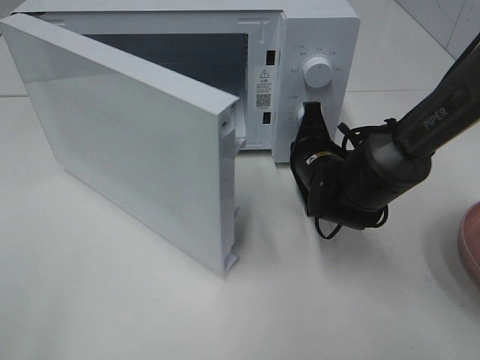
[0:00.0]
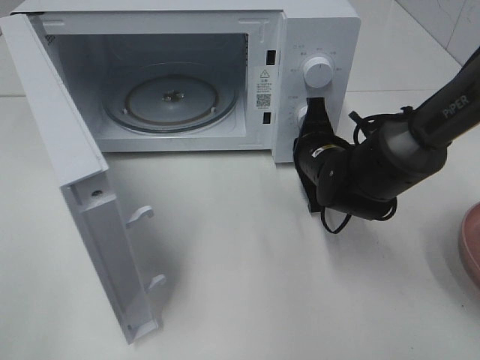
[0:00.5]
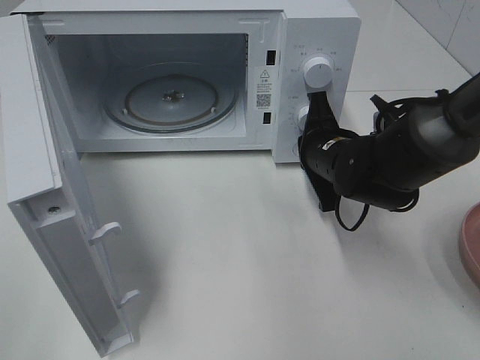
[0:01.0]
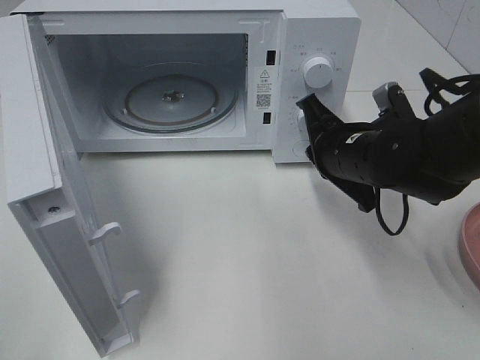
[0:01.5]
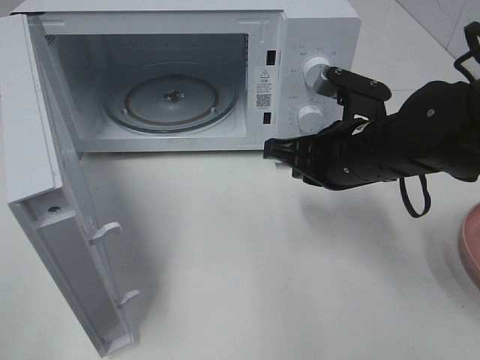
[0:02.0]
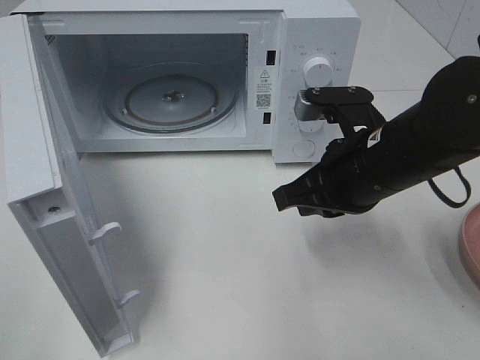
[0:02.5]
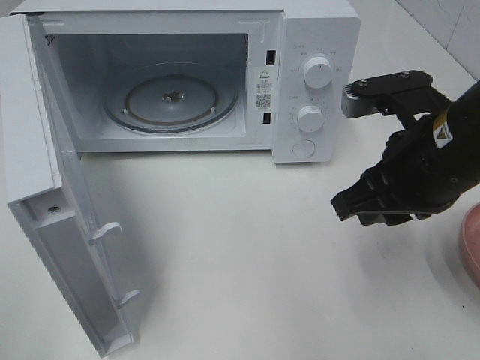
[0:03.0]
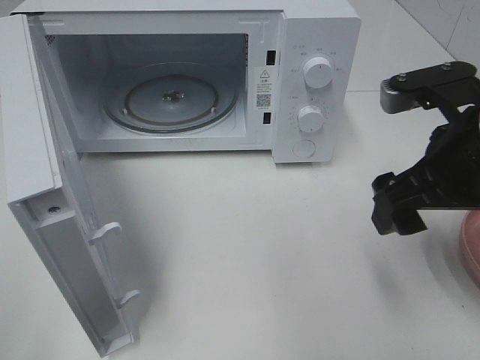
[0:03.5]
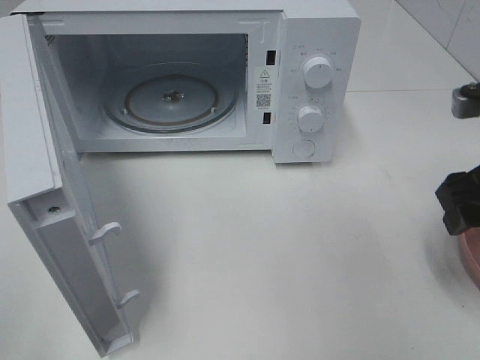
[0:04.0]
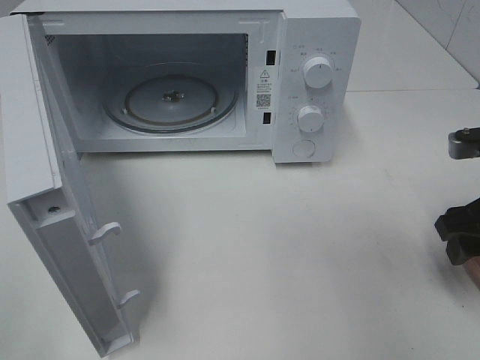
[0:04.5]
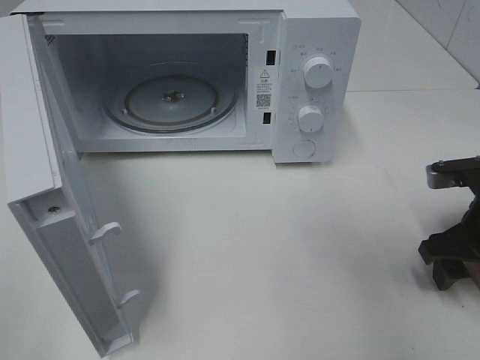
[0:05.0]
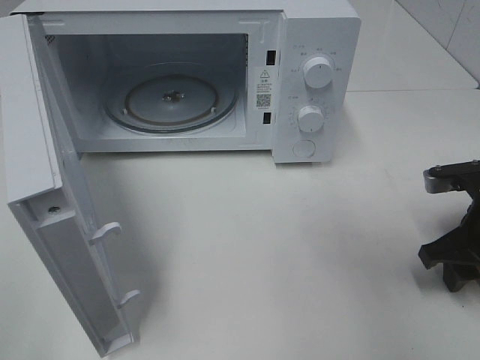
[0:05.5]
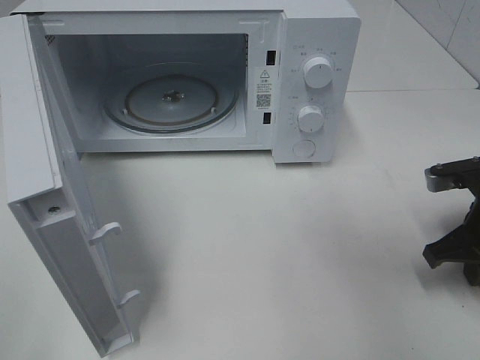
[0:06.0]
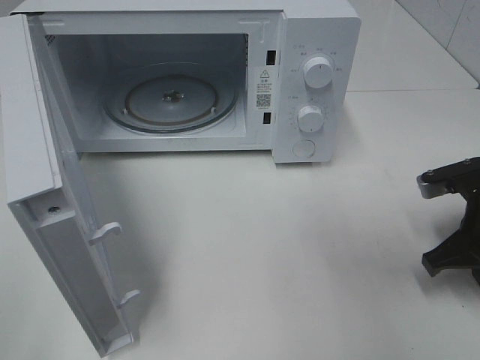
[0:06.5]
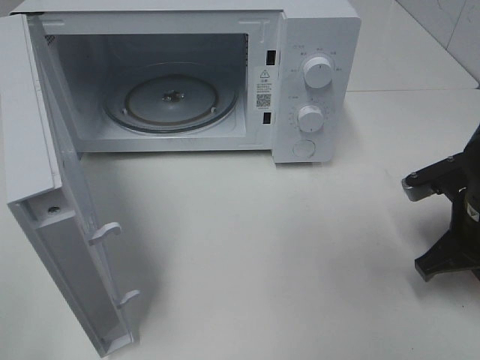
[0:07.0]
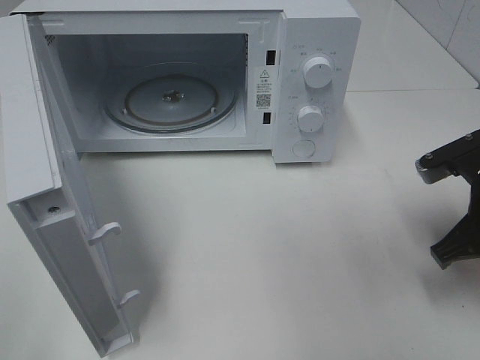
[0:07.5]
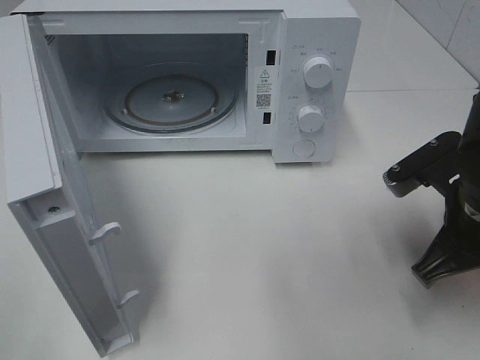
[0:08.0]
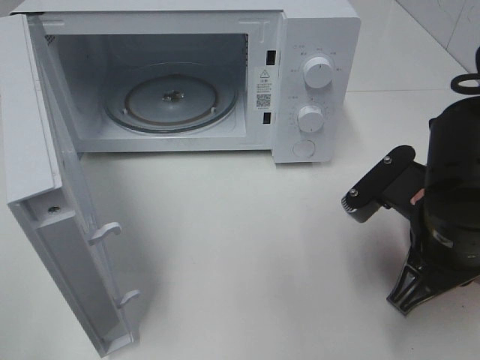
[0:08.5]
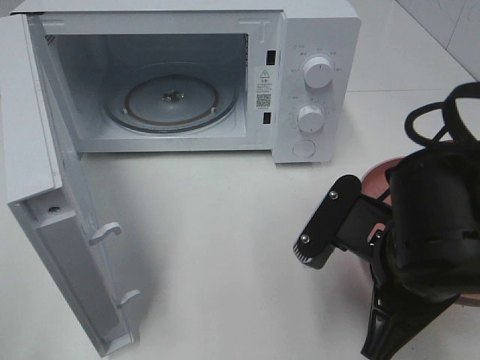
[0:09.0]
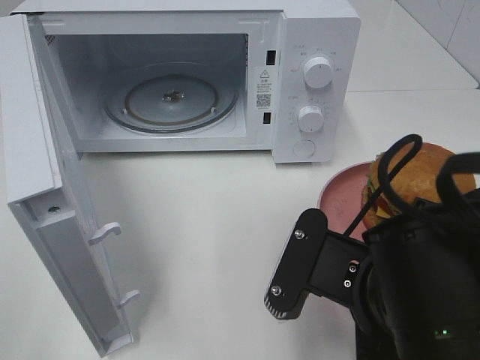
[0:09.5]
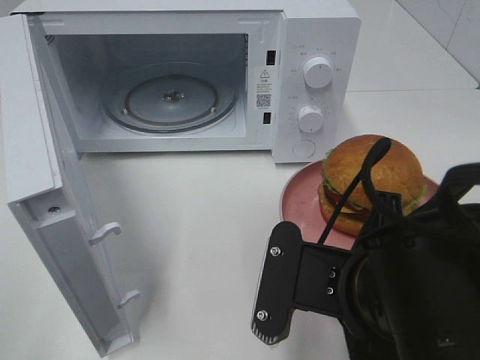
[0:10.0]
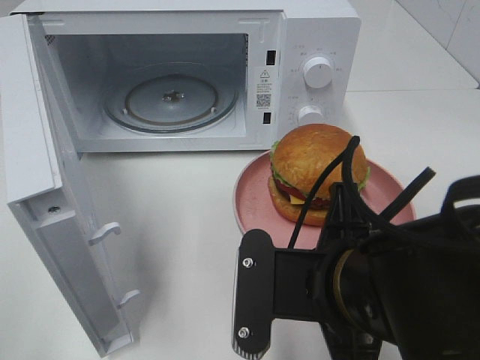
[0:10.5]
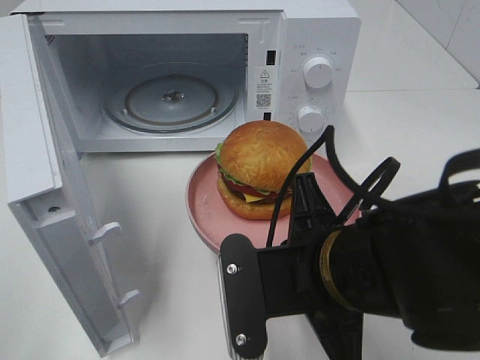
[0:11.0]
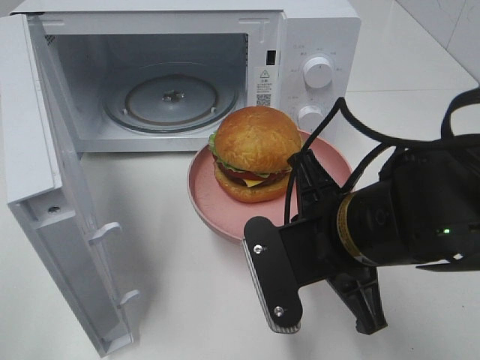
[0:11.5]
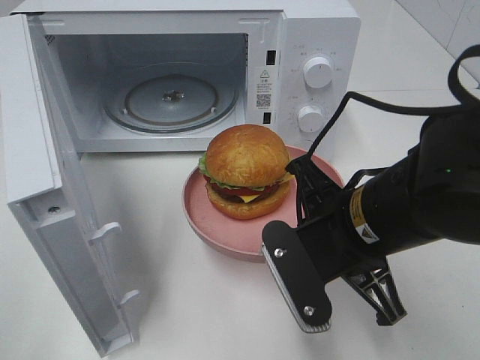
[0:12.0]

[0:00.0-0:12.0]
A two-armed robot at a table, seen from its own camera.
Task of the whole recording: Heat the burger.
Step, 0:01.5 to 0:06.0: Right hand: grab the plate with the hamburger.
0:00.0 to 0:02.0: The right gripper moves upward and backward, about 10 cm.
0:02.0 to 0:04.0: The right gripper is displaced to the right by roughly 15 cm, and opens up.
0:04.0 to 0:06.0: The right gripper is displaced downward by about 10 cm, and closes.
0:06.0 to 0:08.0: The right gripper shifts some 10 cm to the left and upward.
0:08.0 to 0:10.0: The right gripper shifts approximately 15 cm to the left and backward.
0:10.0 to 0:12.0: The right gripper shifts approximately 5 cm forward.

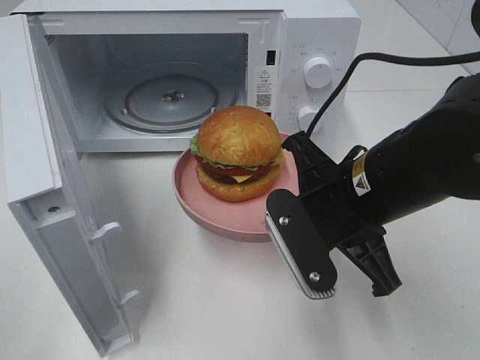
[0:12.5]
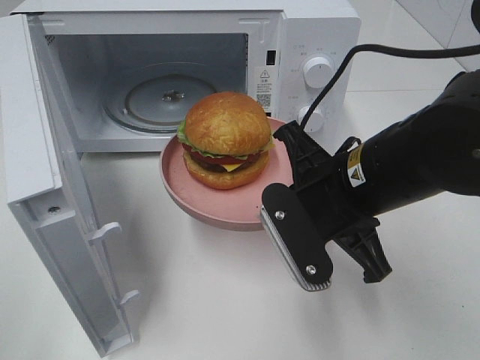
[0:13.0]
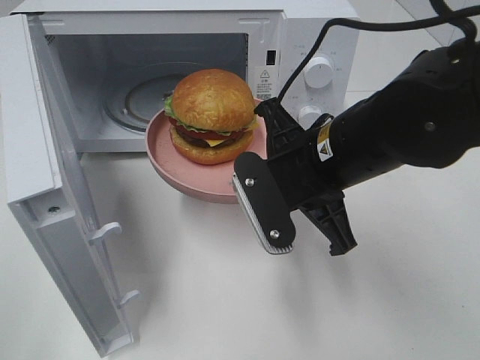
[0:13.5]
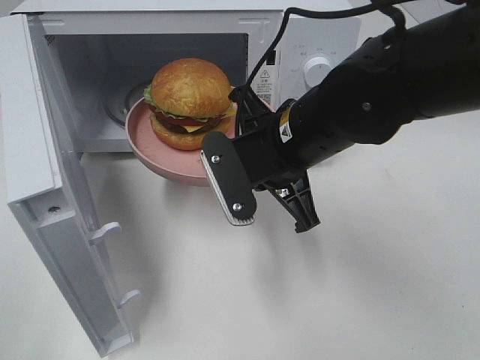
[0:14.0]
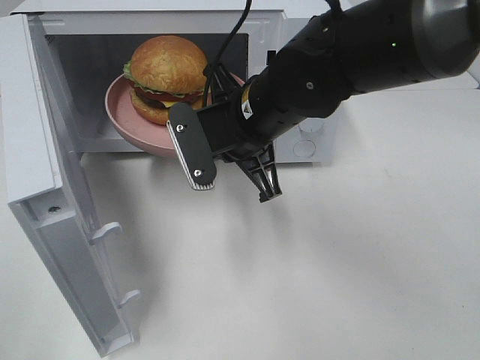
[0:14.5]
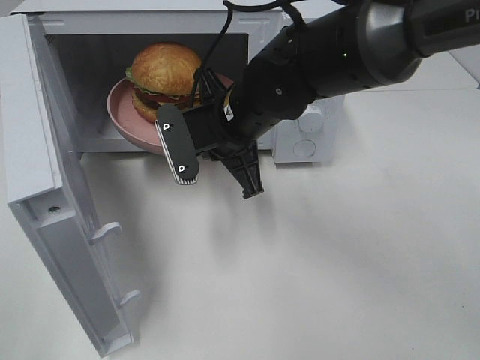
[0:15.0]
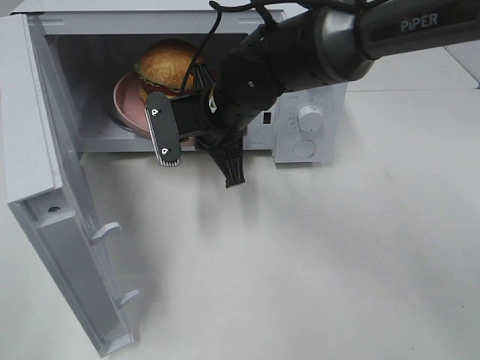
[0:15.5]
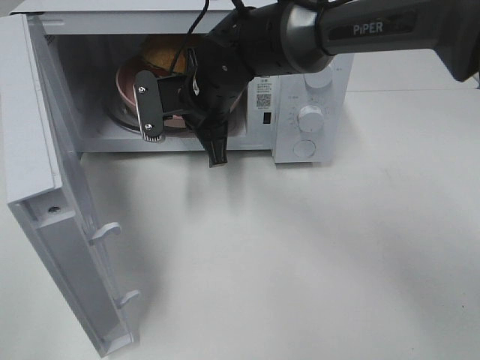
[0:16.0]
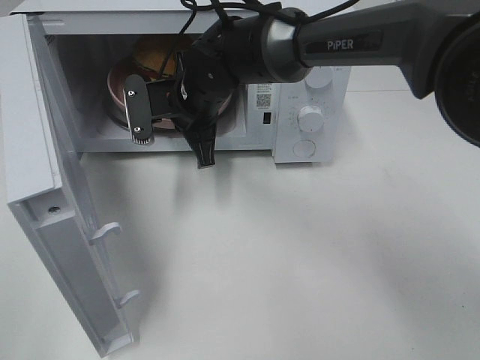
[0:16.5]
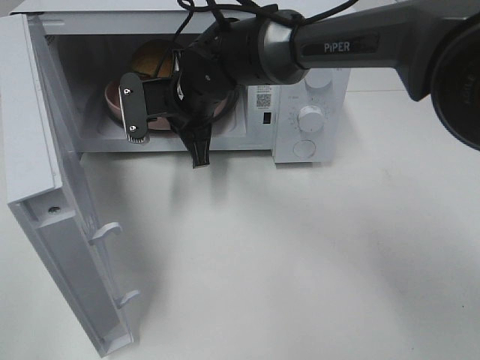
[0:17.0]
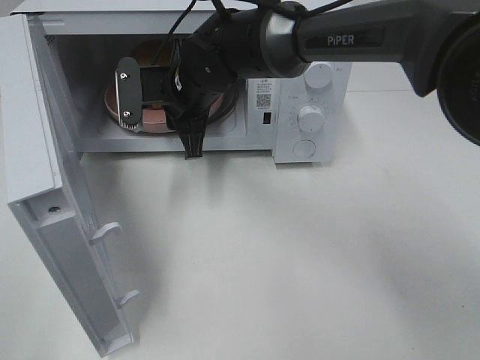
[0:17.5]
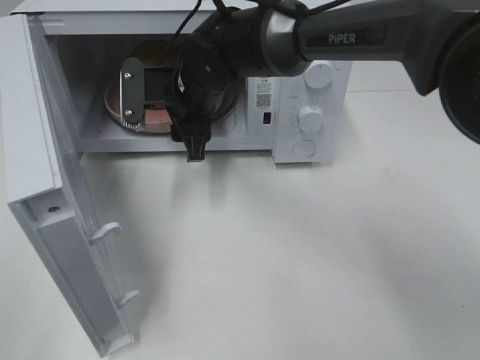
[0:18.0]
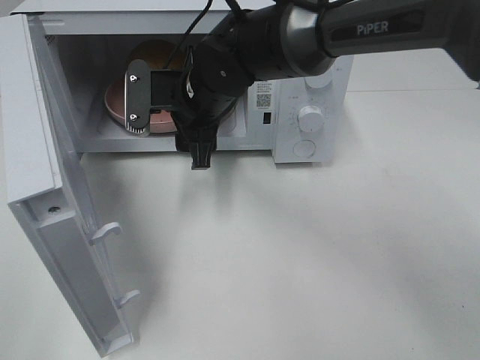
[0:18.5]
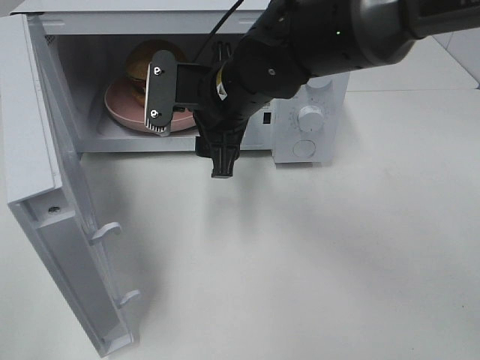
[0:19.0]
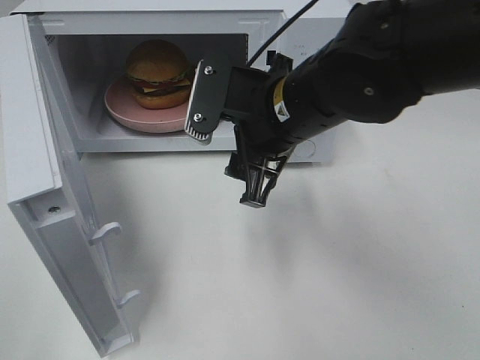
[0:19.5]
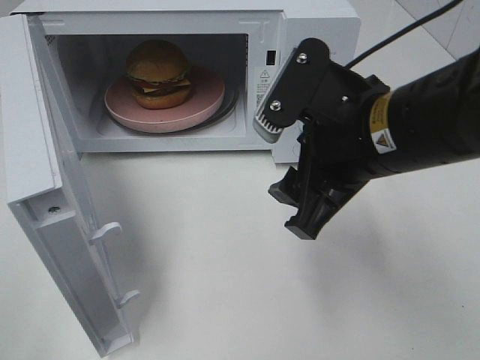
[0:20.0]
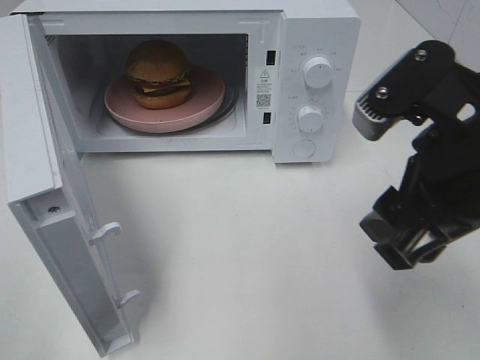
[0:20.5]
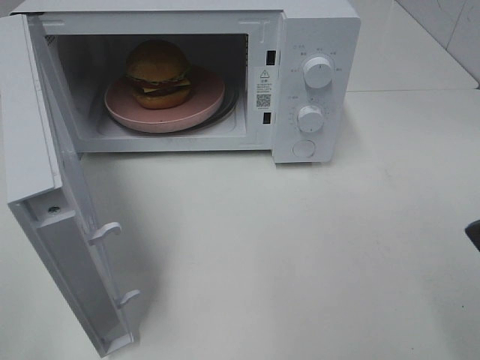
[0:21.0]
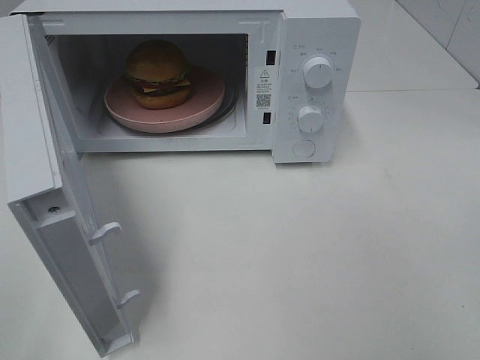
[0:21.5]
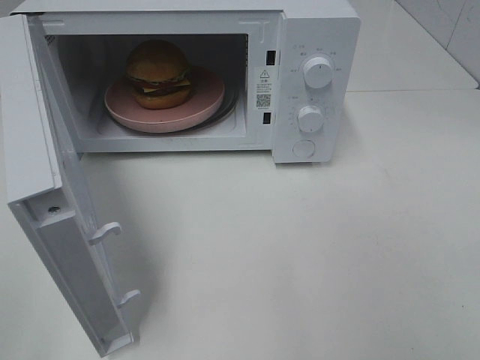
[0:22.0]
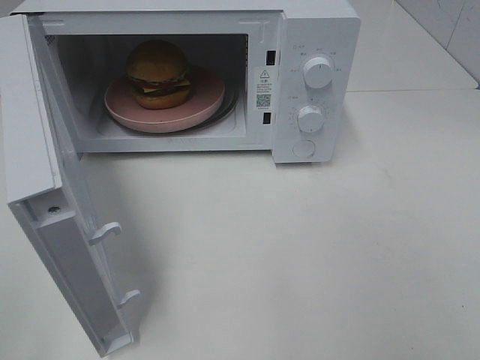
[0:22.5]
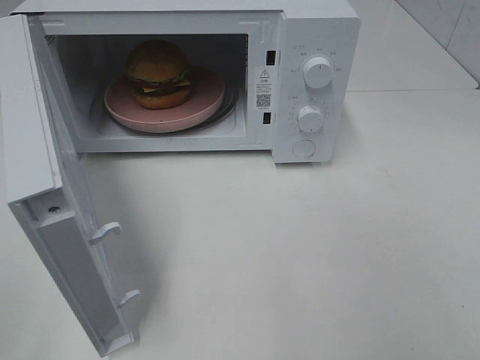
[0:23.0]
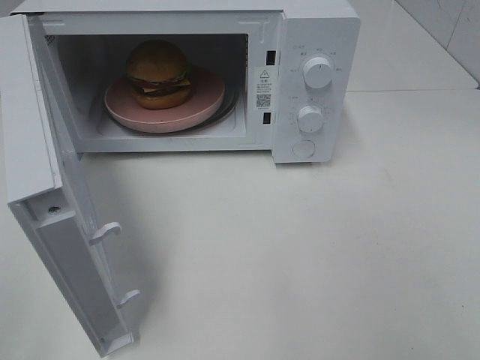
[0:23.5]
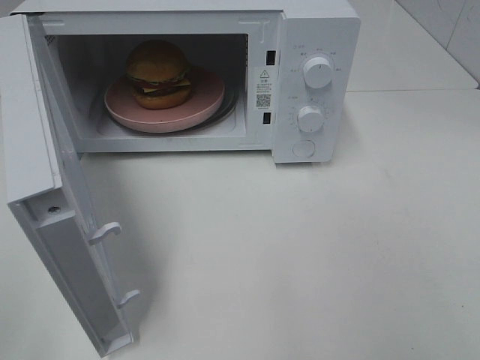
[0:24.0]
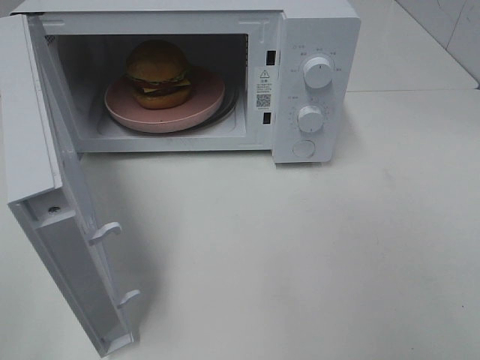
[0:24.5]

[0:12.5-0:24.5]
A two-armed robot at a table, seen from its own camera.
Task of the whole recording: Heat the burger.
Step, 0:12.5 to 0:17.5: Right hand: place the plate in the microwave.
0:12.5 to 0:14.5: The right gripper is displaced forward and to the left by some 15 cm.
0:14.5 to 0:16.5: The right gripper heads forward and to the left, covering some 10 cm.
0:16.5 to 0:18.5: The right gripper opens up.
0:18.5 to 0:20.5: The right gripper moves backward, to the right and upward, about 30 cm.
0:20.5 to 0:22.5: The right gripper is displaced backward and to the right by about 20 cm.
0:22.5 to 0:24.5: Both grippers stay put.

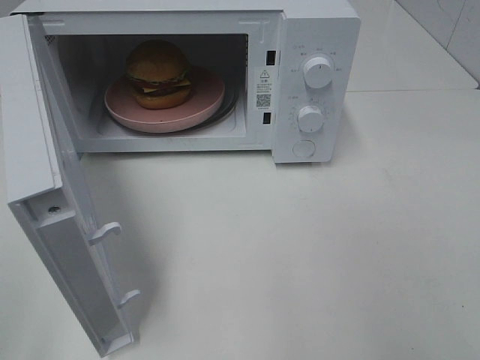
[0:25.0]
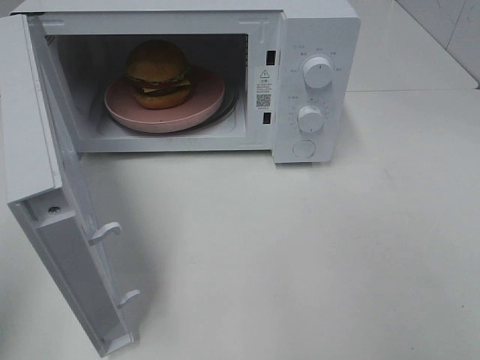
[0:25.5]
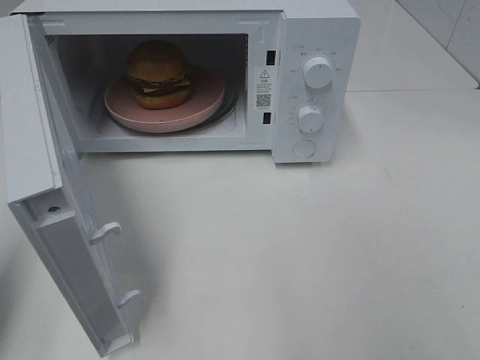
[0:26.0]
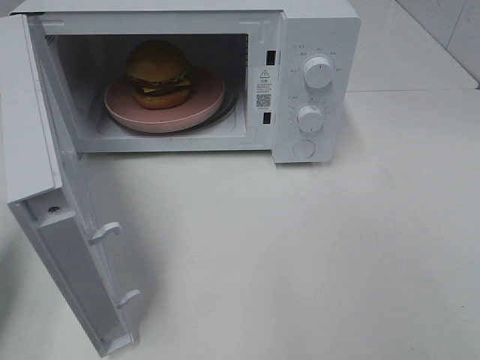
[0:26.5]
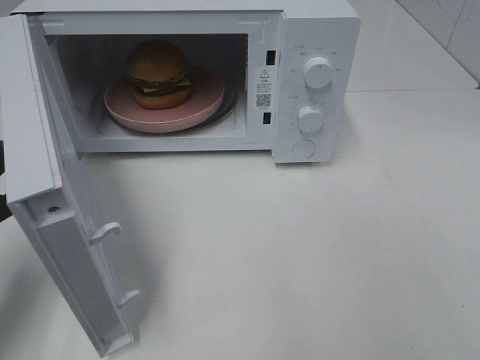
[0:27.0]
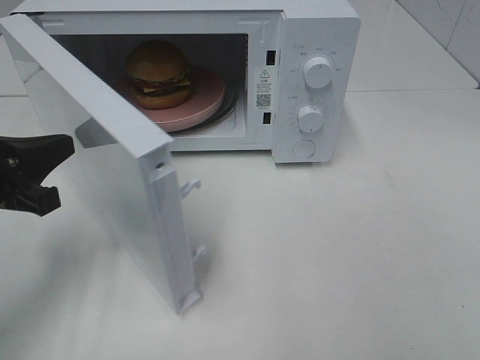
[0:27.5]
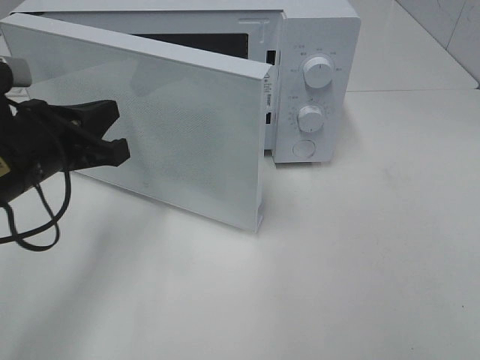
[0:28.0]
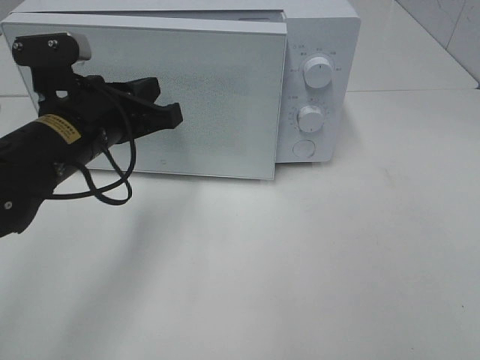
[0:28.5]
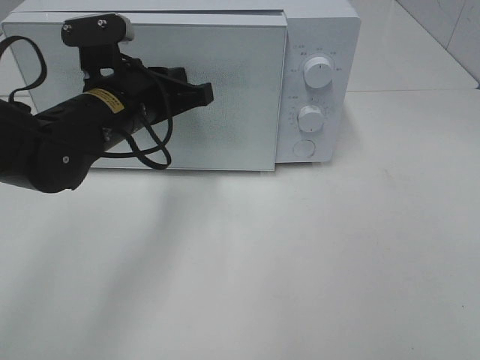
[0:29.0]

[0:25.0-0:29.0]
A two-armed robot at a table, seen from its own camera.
Task of the whole recording: Heat the burger.
0:25.0 to 0:27.0: The left gripper moves forward and downward, some 20 cm, and closes up.
0:27.0 to 0:29.0: The left gripper travels to the right and forward by roughly 20 cm.
